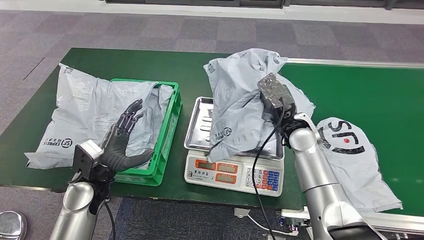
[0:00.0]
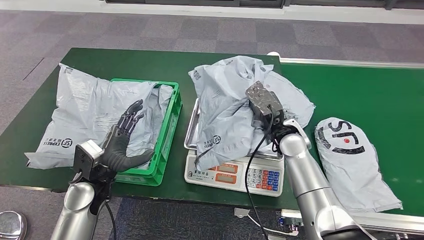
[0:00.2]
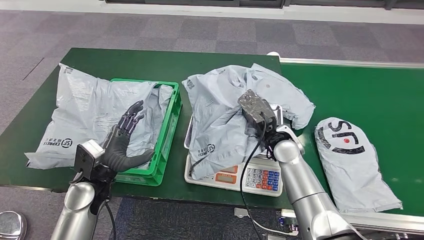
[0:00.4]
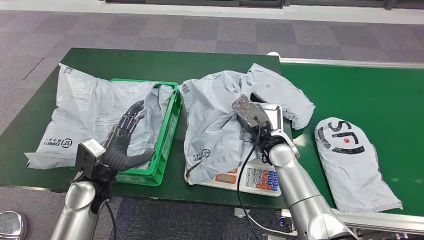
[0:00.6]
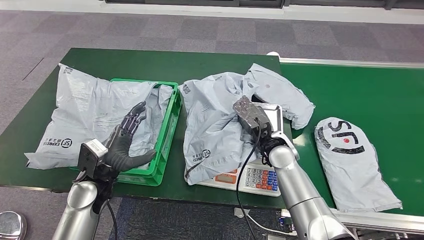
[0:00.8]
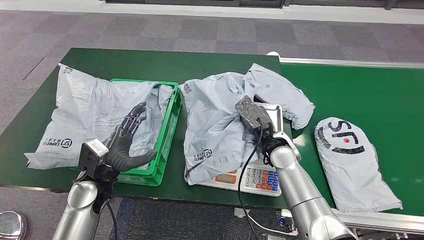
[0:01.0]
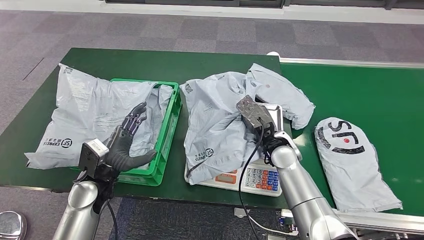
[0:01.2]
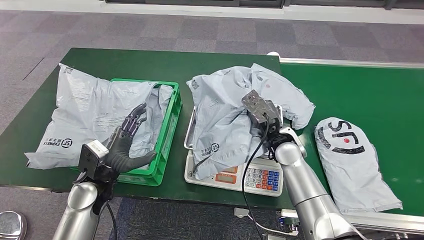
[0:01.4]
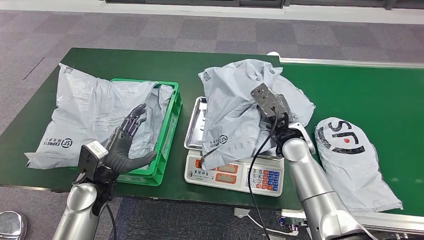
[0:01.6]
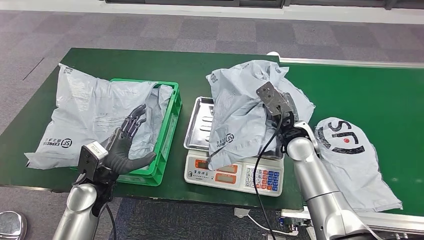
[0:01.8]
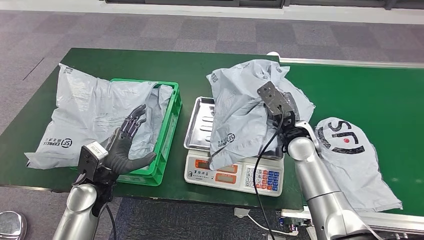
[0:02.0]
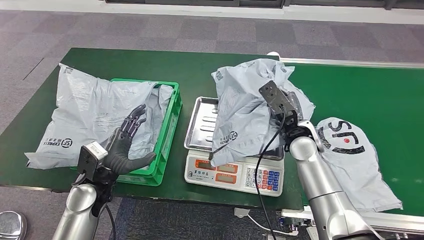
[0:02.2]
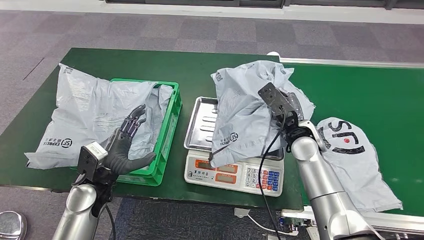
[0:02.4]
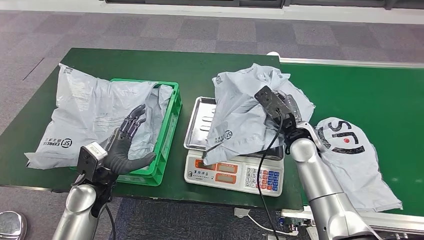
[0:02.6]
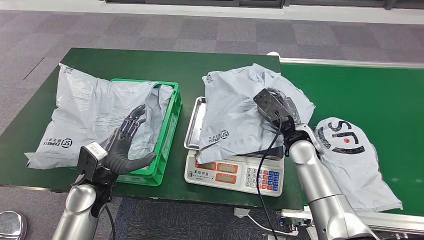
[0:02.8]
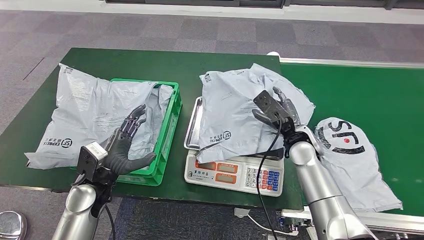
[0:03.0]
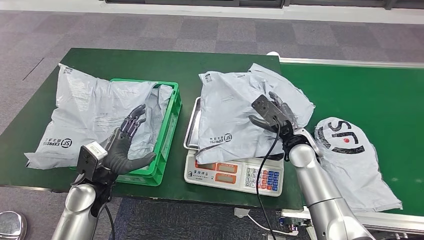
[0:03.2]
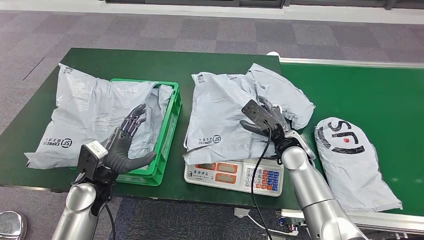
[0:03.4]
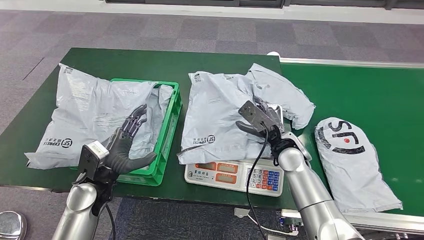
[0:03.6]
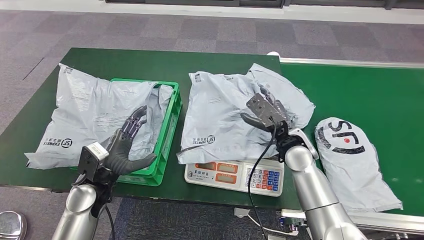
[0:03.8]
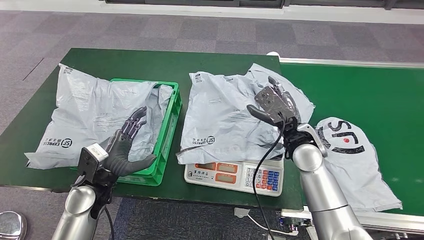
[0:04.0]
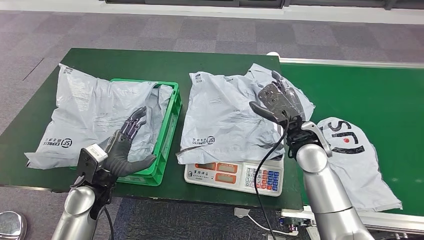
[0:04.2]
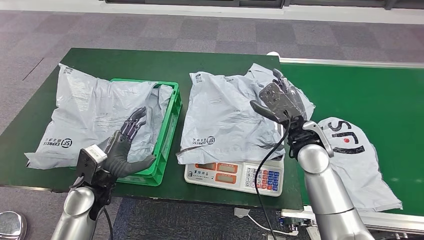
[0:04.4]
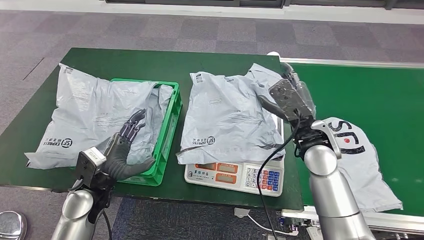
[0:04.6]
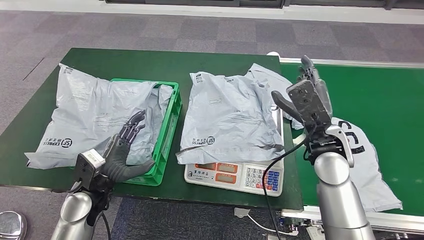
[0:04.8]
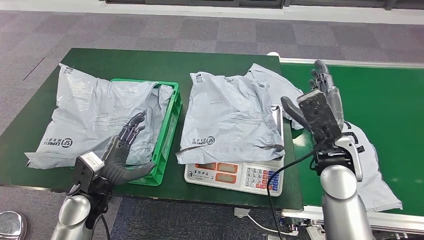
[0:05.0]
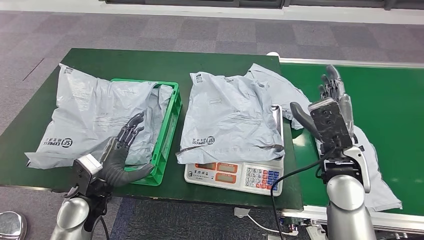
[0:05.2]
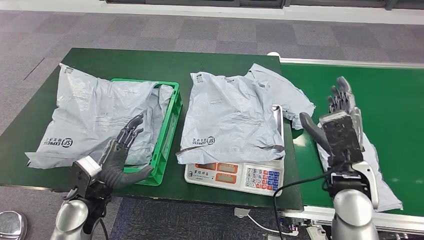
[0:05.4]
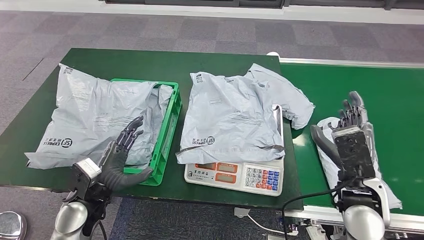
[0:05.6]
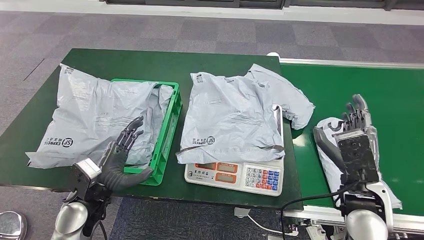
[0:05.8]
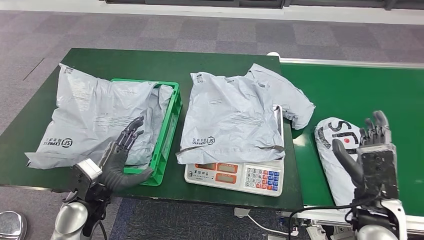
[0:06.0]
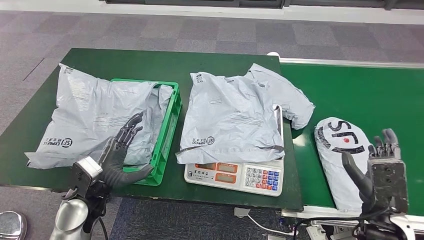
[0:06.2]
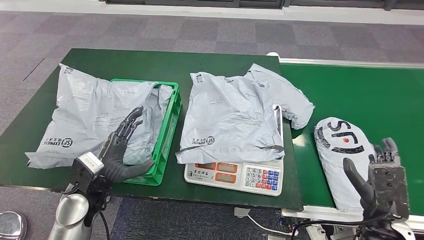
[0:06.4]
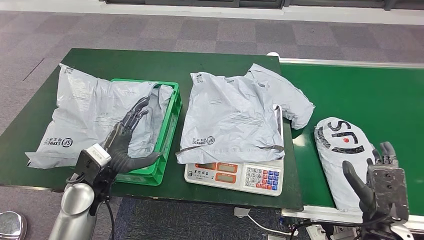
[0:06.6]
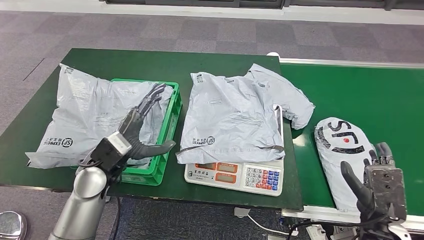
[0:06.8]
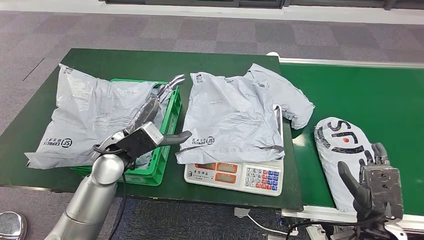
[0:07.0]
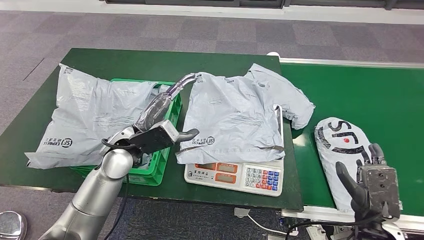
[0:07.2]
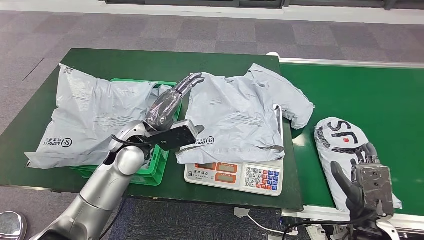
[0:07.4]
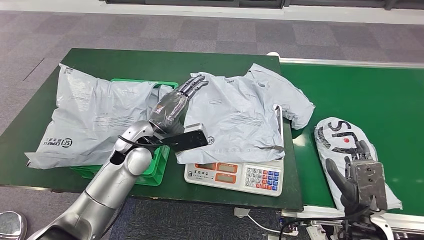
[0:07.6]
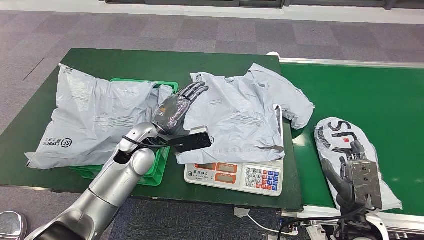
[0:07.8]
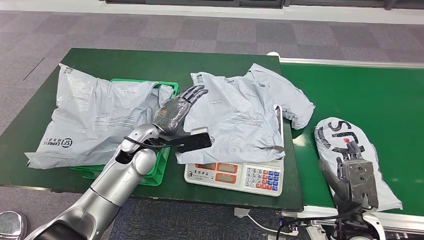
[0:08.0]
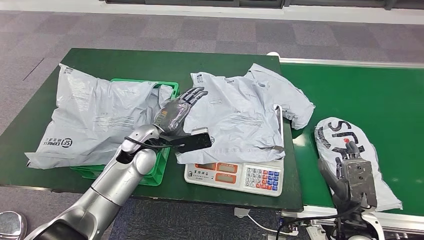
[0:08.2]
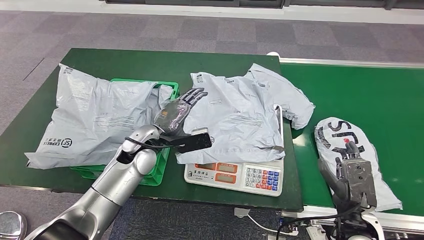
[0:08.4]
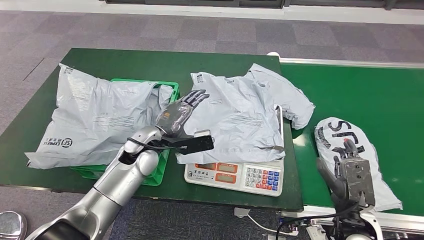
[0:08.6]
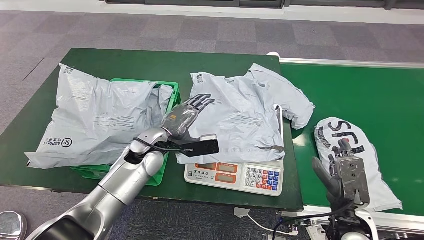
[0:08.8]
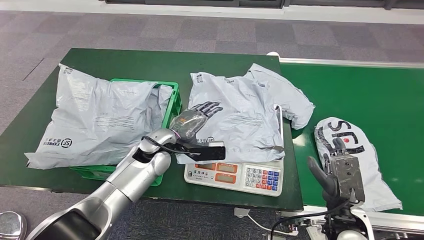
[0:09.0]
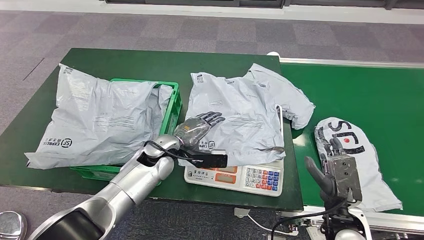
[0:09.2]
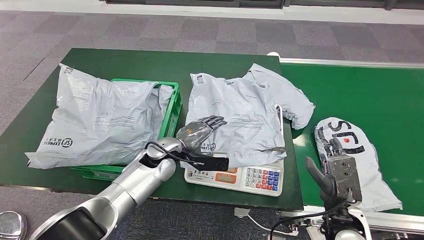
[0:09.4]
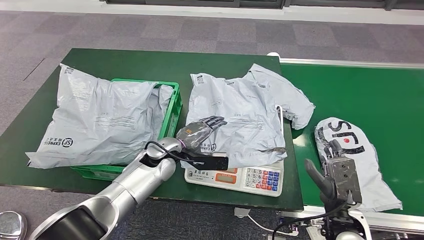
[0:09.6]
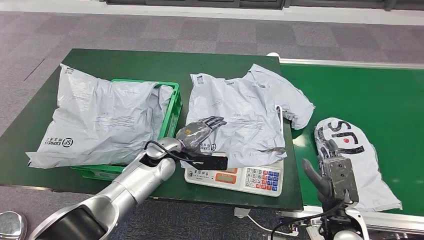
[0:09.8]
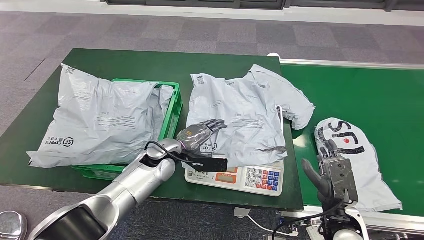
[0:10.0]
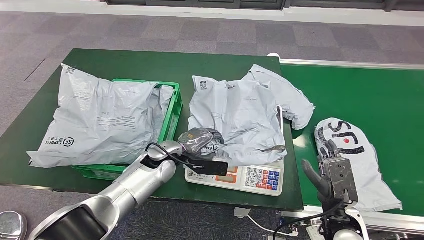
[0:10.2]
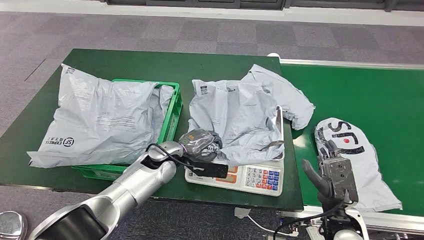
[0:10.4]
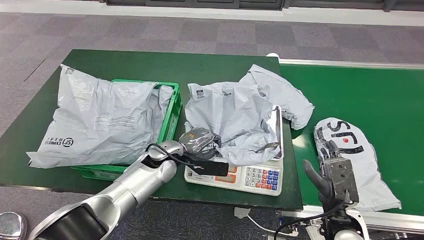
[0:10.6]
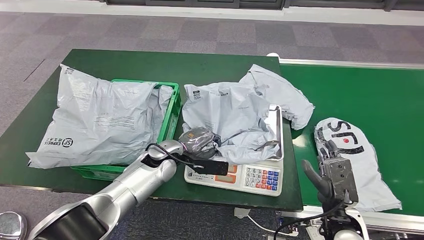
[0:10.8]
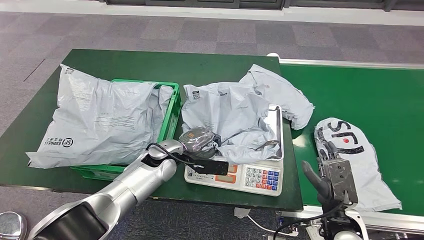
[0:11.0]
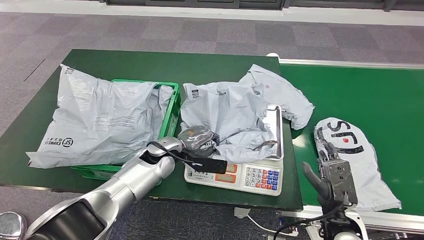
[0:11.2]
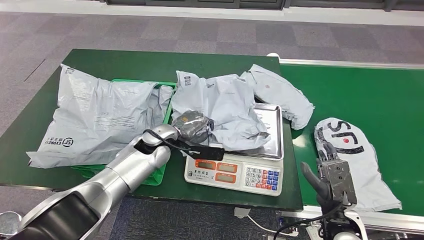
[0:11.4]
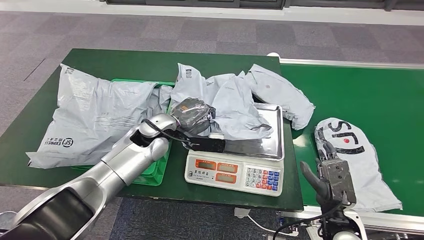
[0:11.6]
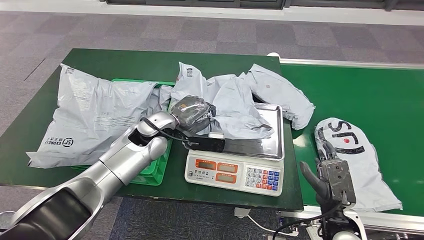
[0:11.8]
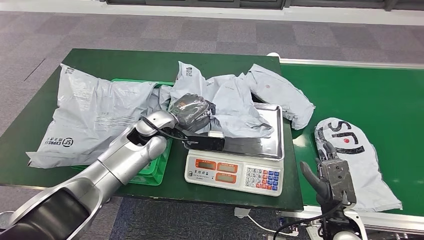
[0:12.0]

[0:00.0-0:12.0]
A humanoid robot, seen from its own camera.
Step, 0:00.0 to 0:05.0: Place the parcel onto the inbound machine.
0:01.6 to 0:03.0: The hands stay close to where they were, moving slightly.
0:03.0 to 0:04.4: The right hand is displaced upward by about 5 cm.
0:04.4 to 0:06.0: The right hand moves backward and to the right, about 20 cm.
0:06.0 to 0:07.6: The right hand changes place by roughly 5 cm, while the left hand moves forward, to the right and upward, roughly 20 cm.
0:07.6 to 0:09.0: The left hand heads downward, covering approximately 5 cm.
0:09.0 to 0:10.4: There are only small adjustments of the hands.
0:10.4 to 0:12.0: The left hand shifts some 10 cm upward.

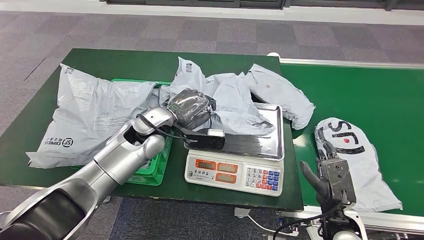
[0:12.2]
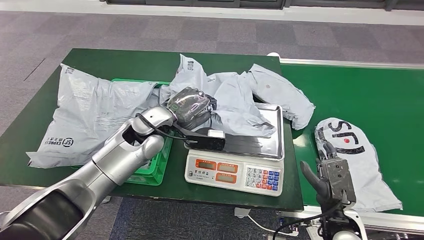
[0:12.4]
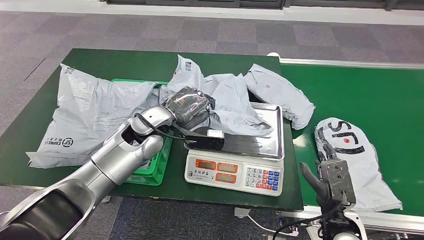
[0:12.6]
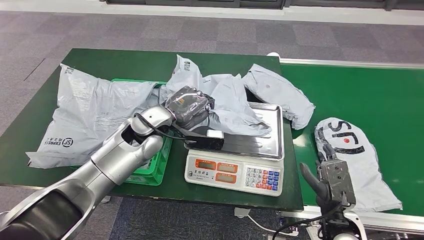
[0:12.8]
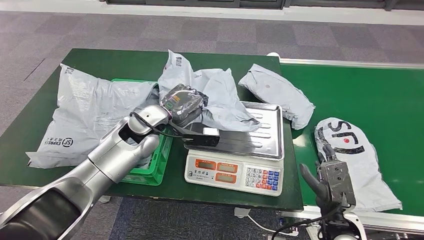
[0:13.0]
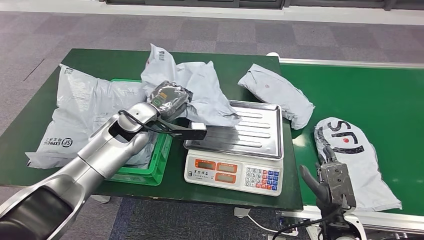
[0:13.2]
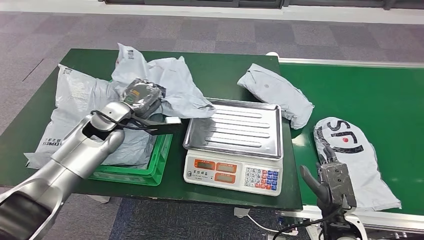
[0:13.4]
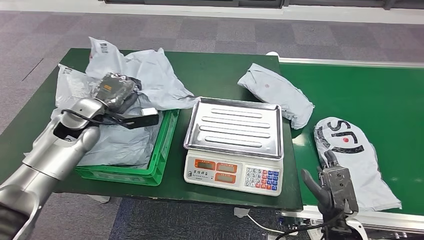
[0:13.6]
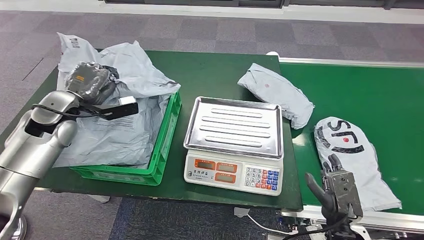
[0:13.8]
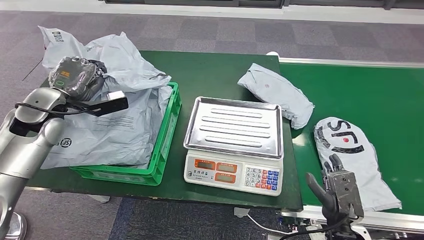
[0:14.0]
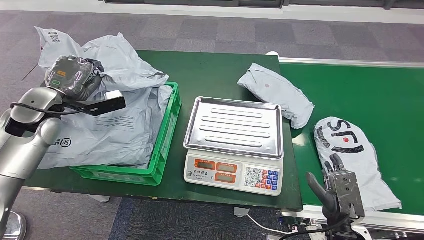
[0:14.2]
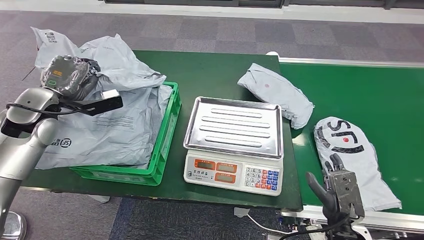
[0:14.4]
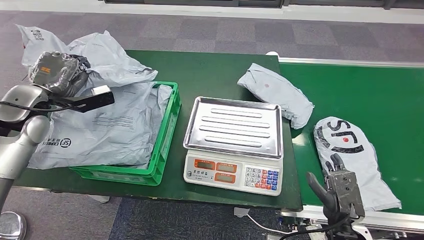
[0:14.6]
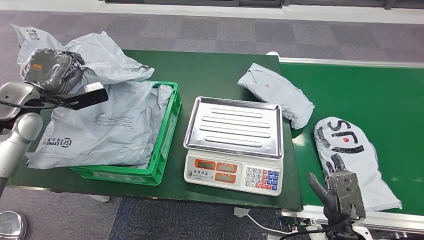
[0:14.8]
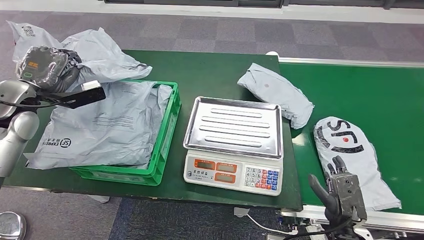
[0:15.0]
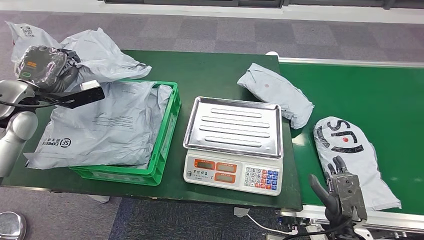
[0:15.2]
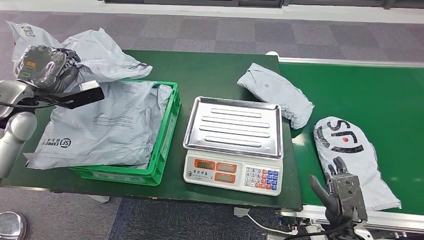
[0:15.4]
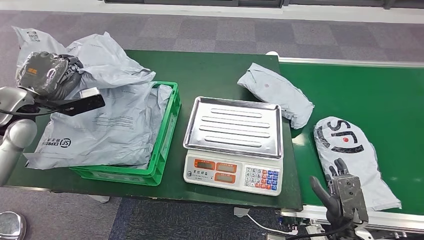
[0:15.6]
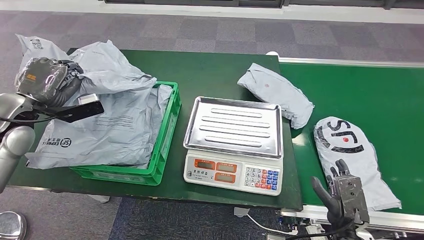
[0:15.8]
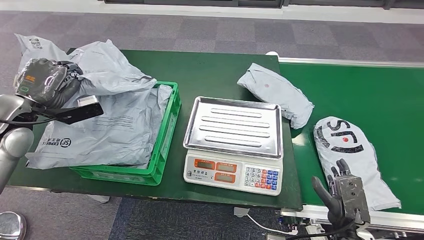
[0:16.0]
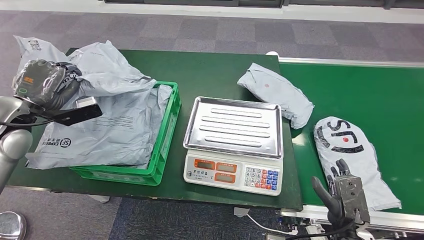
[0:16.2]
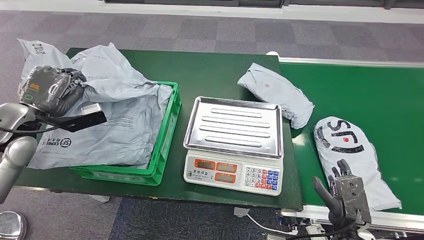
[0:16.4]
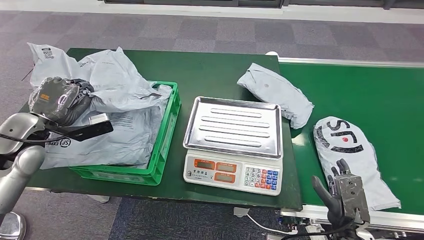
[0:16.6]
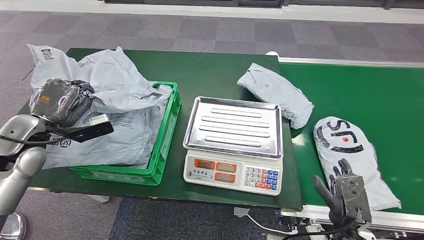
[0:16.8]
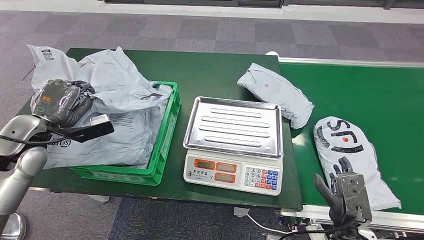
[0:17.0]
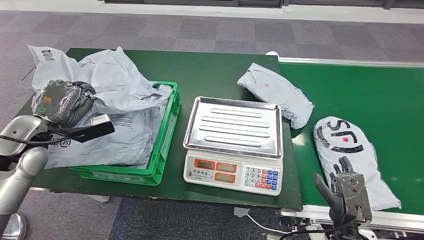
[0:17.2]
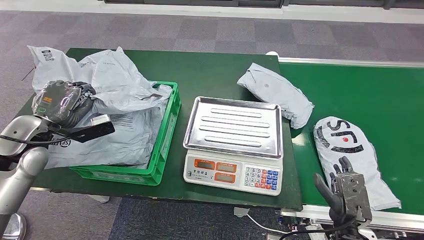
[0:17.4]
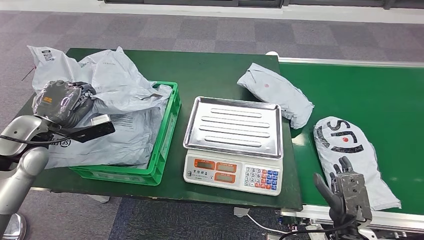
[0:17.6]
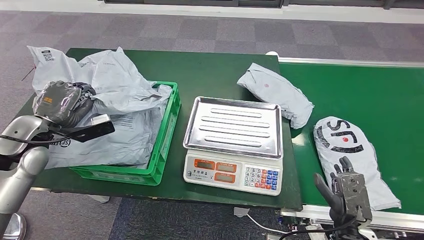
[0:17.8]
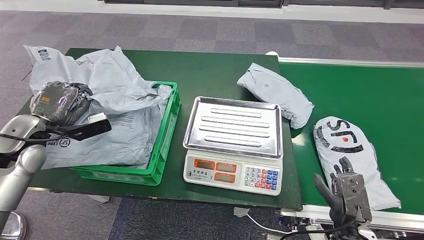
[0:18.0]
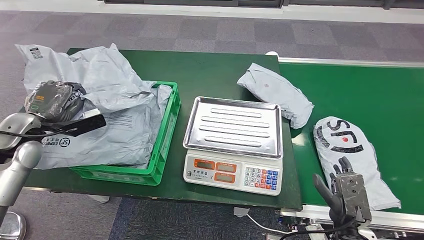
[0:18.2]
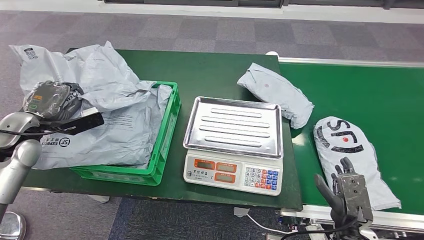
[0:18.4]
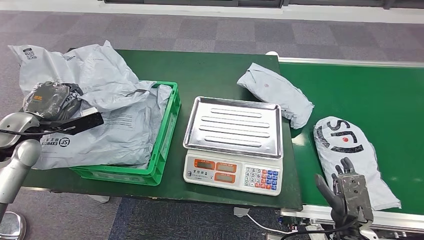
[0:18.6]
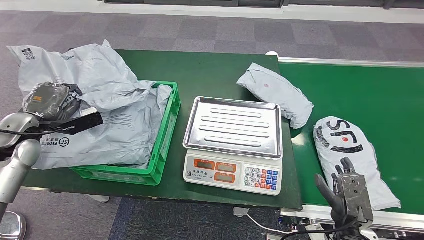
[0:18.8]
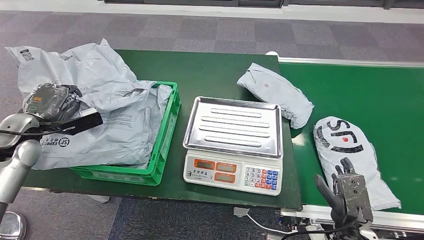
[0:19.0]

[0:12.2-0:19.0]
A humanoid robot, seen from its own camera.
0:15.0 to 0:16.2: The hands stay close to where they were, moving slightly.
0:16.2 to 0:17.6: The left hand moves some 5 cm.
0:17.6 to 0:19.0: The left hand shifts by about 5 cm.
